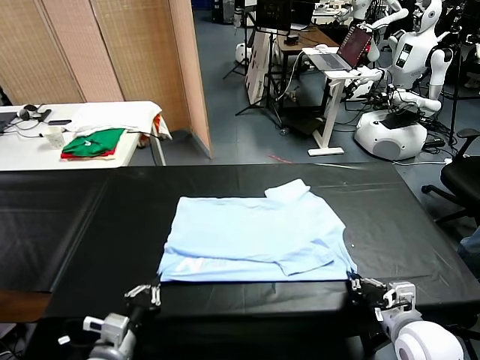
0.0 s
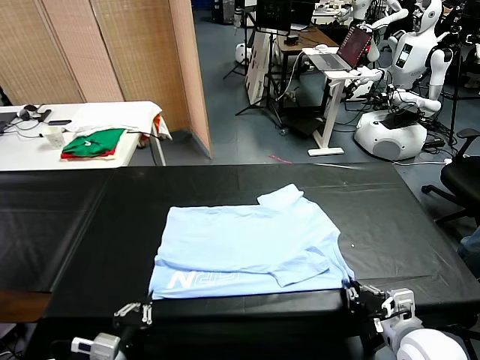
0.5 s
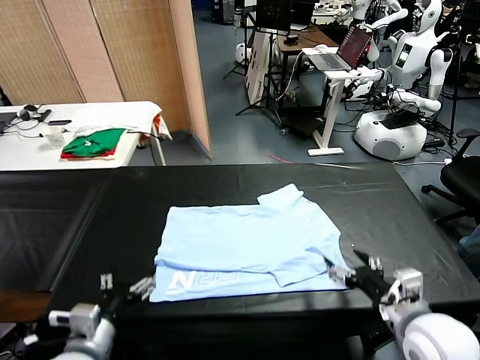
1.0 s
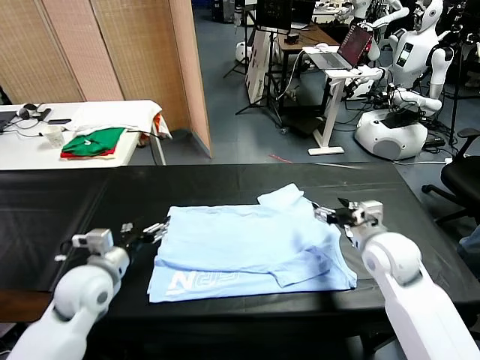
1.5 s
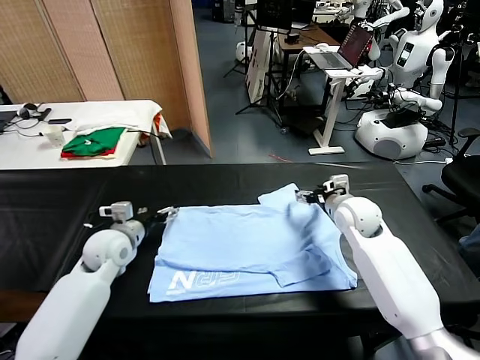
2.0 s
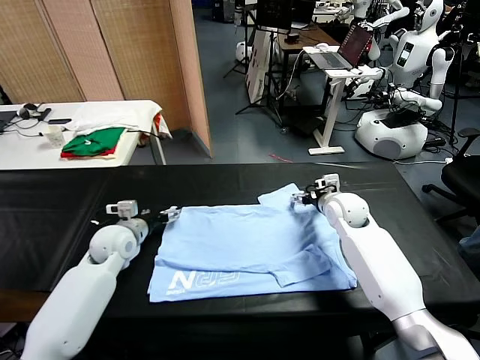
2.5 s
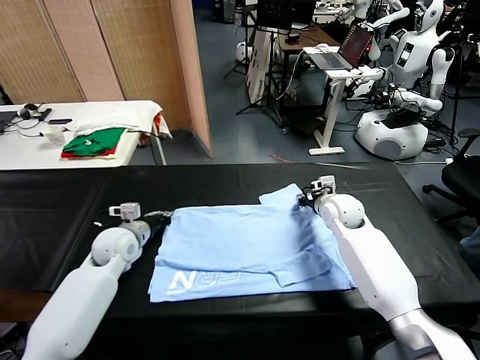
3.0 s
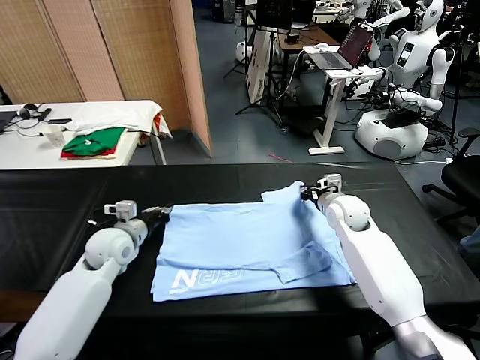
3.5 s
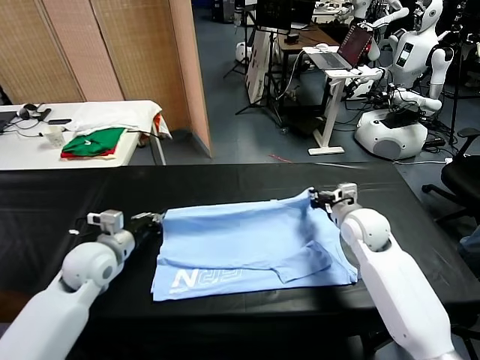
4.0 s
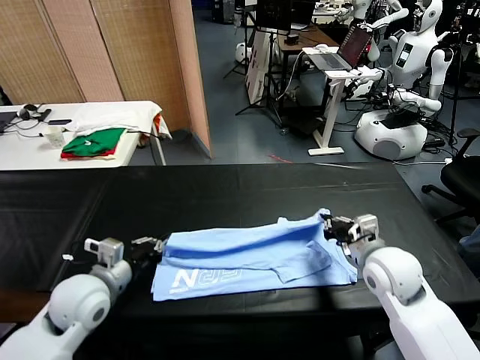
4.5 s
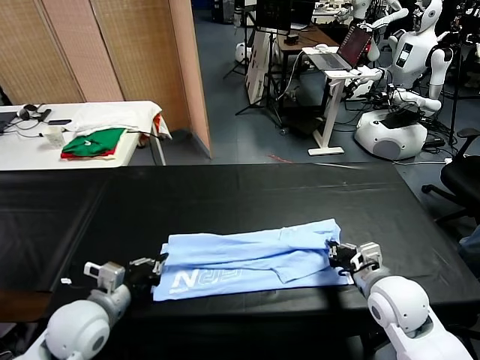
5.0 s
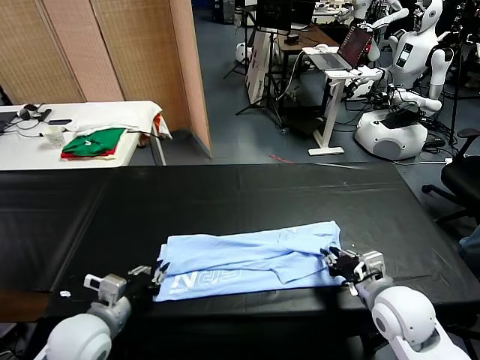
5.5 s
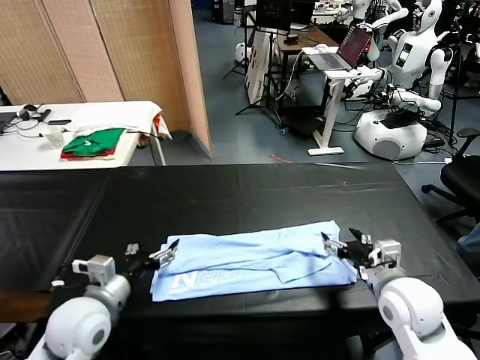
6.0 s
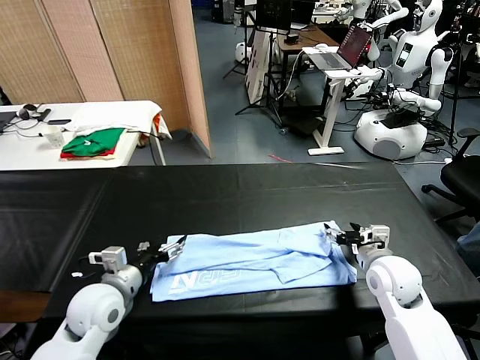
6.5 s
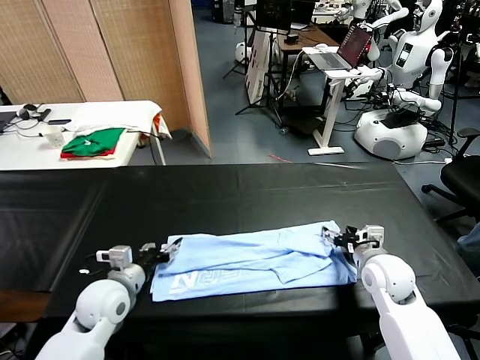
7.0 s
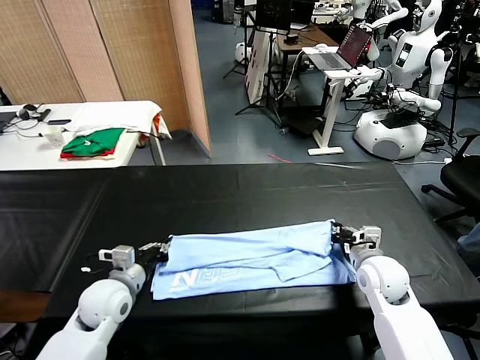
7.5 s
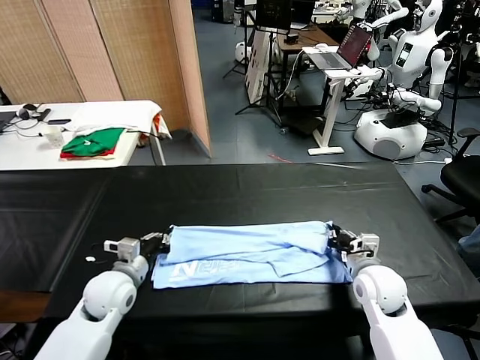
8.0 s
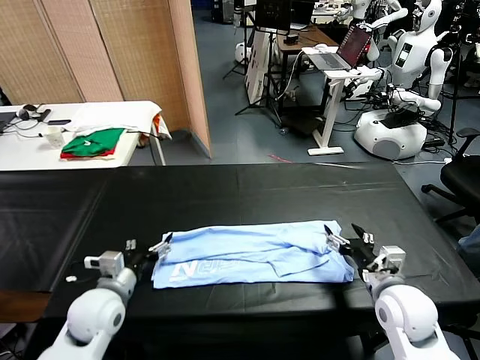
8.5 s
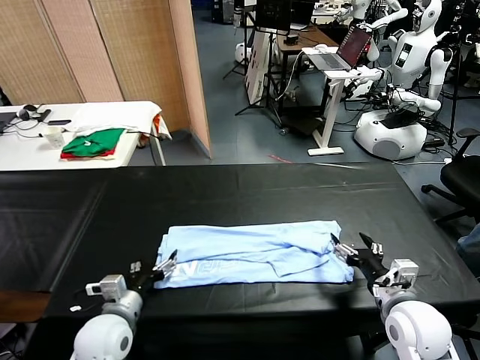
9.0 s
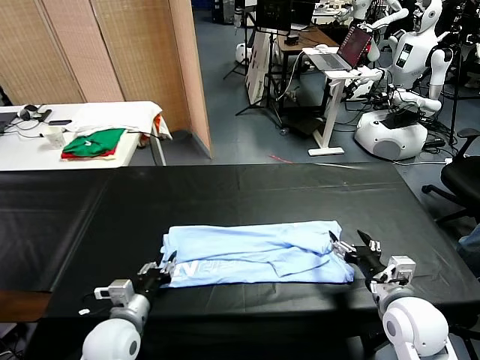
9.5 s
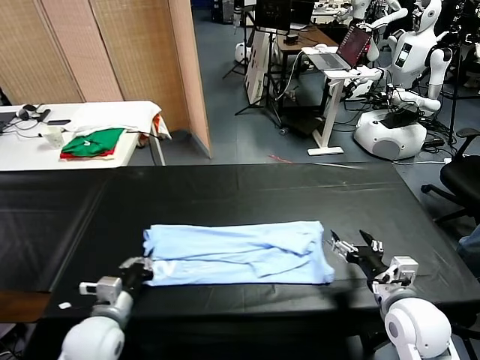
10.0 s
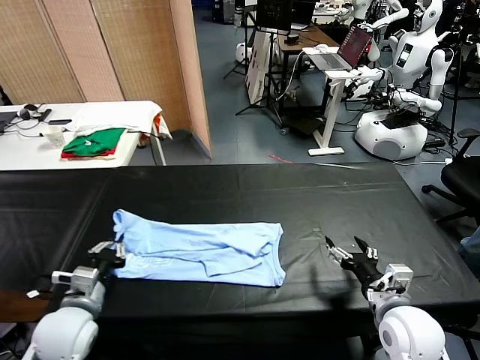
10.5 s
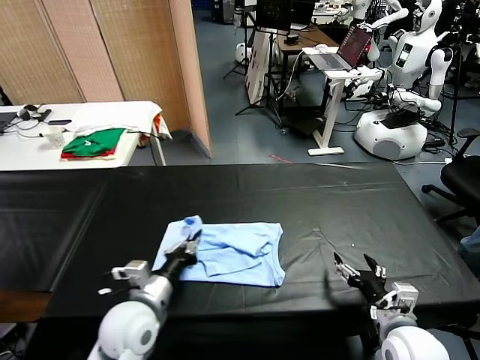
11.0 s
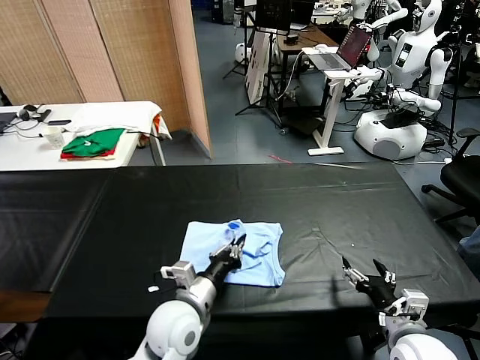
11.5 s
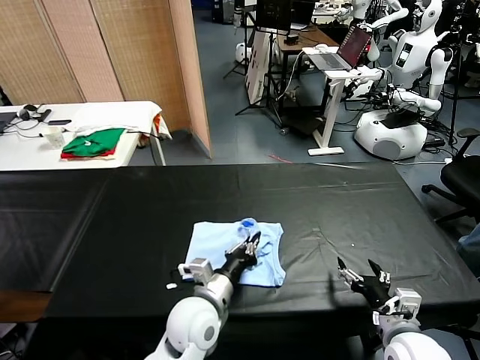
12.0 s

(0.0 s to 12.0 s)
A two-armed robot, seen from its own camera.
Task of the whole recording: fold and organize the clothes.
Step, 1.0 s - 3.0 s: use both grippers simultaneously to clamp the upper edge of the clothing fabric.
Step, 3.5 s - 5.5 s: use both grippers to drag the upper edge of the fabric backward and fold it over the lower edge.
Step, 6.0 s - 9.5 s: use the left gripper to clamp the left edge of the fabric.
0.0 s - 2.0 s: Both grippers move forward, roughly 30 cm. The right gripper opens. Meanwhile the left gripper opens up.
2.0 s - 4.0 s: Both grippers move backward, approximately 10 cm. The left gripper closes up. The right gripper closes its fingers.
4.0 s - 6.0 s: Both grippers travel together backward, approximately 10 cm. The right gripper opens, while the left gripper opens its fingers.
6.0 s - 8.0 s: The right gripper shifts about 5 cm downward, and closes its fingers. The left gripper is displaced forward and downward by approximately 10 cm, and closes its fingers.
8.0 s - 10.0 s: The two grippers go roughly 10 cm backward. The right gripper opens, while the left gripper opens, then closes once more.
10.0 s - 12.0 s: The left gripper heads to the right, covering some 20 cm. The right gripper changes place by about 5 cm.

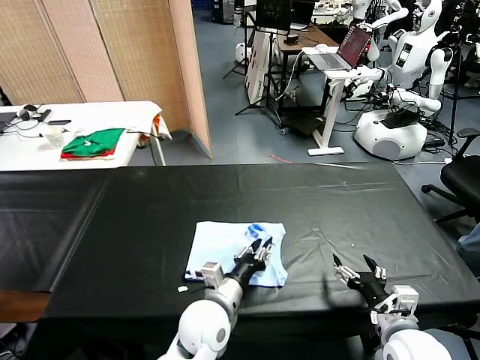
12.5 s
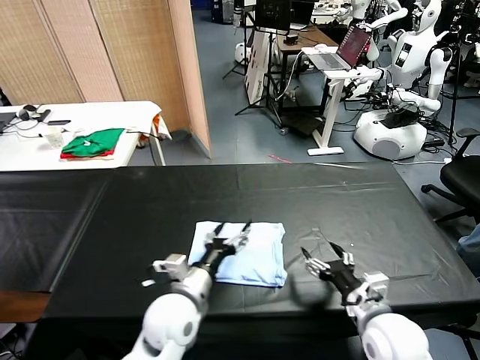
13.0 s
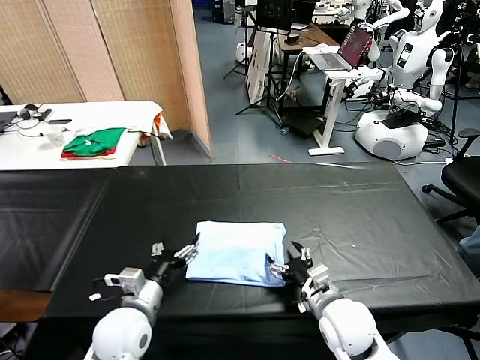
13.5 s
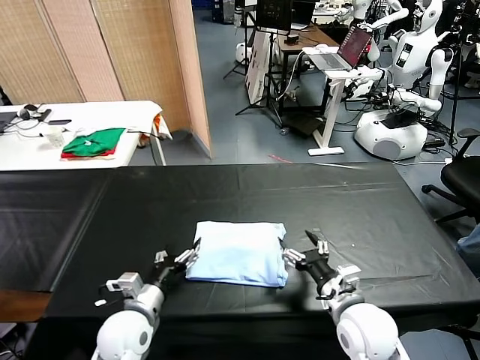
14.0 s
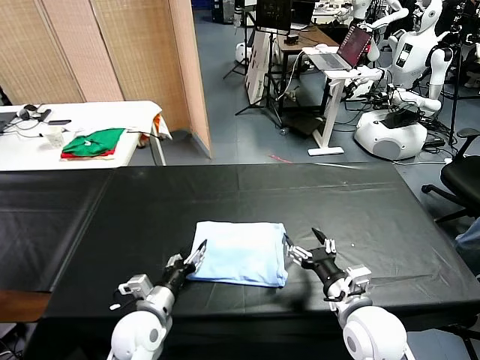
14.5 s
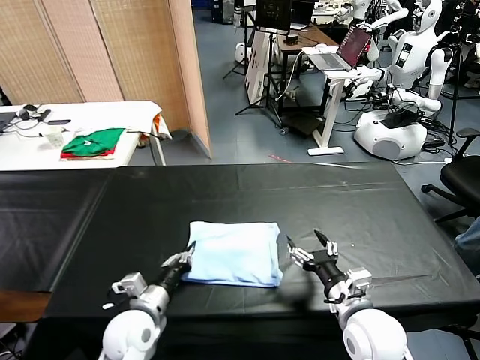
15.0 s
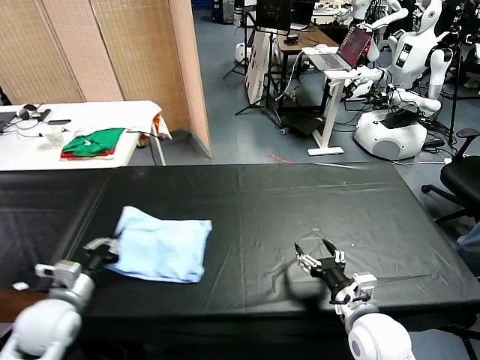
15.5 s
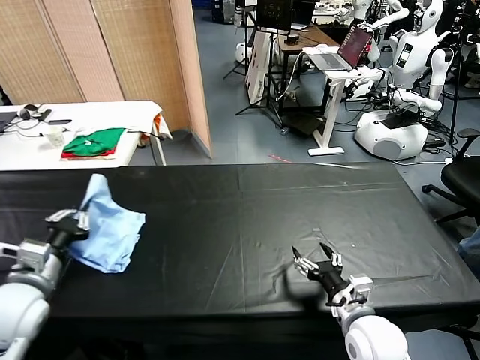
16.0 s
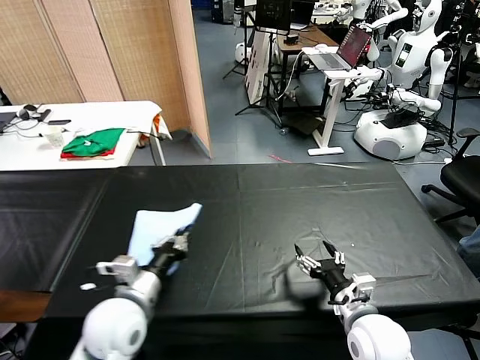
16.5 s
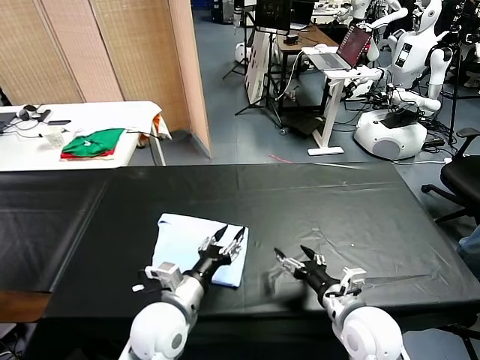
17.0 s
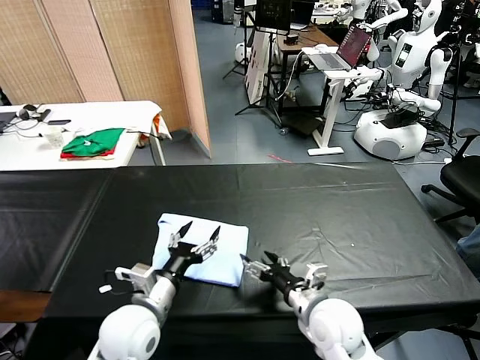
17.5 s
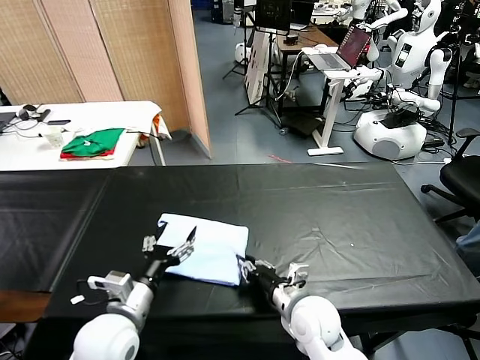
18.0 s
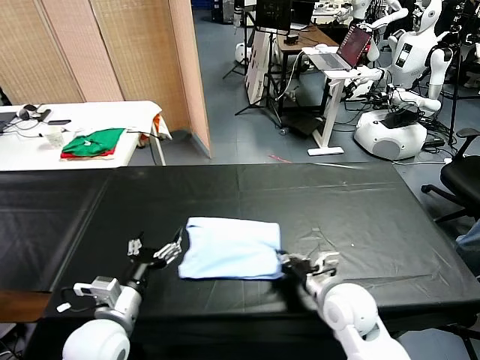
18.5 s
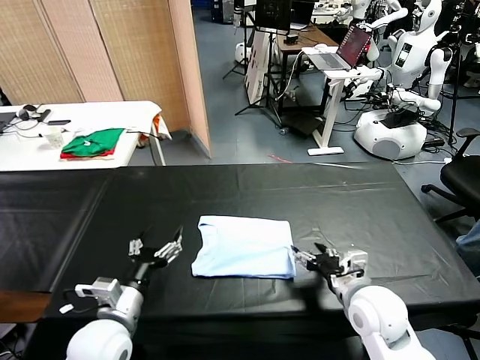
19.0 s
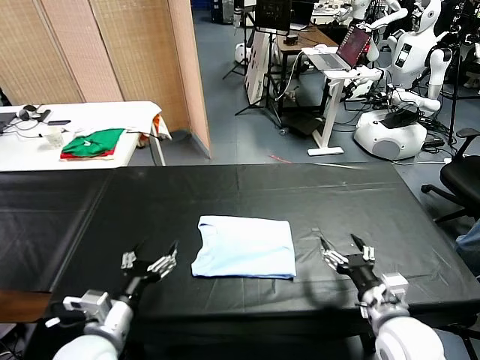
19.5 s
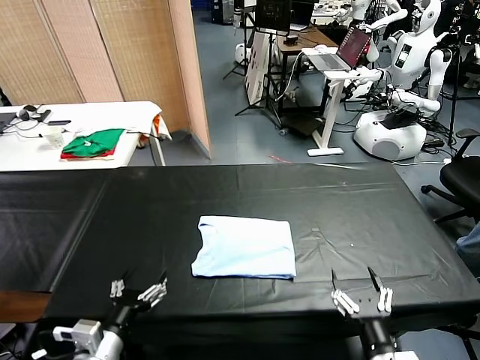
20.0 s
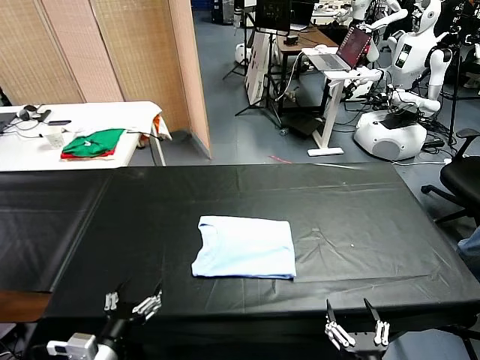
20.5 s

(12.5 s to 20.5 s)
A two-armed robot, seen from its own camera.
Task of the whole recording: fold and organize the clothes.
Step, 13.0 s - 16.5 s: Flip the folded clothes over with left gripper.
Step, 17.0 s - 18.5 s: Drag the clothes to the center of the table.
12.5 s - 14.5 s: The right gripper heads to the left, covering about 5 cm. The left gripper heads to the left, covering some 15 cm, and opens its fingers.
14.5 s - 16.5 s: The left gripper travels upward by about 10 cm, and closes up.
16.5 s - 18.5 s: The right gripper shifts about 5 cm forward, goes to the left and returns, approximately 10 cm each way, and closes up. The left gripper goes to the right and returns, about 5 cm each way, and opens.
18.5 s - 20.5 s: The right gripper goes about 25 cm backward, and opens up; the left gripper heads backward, covering about 10 cm.

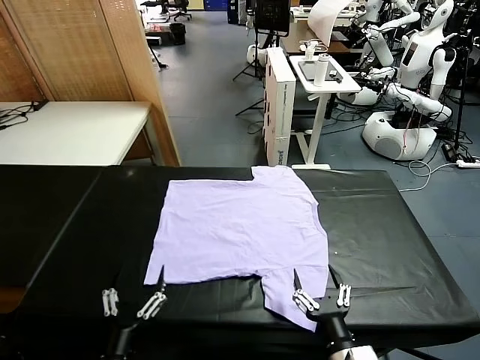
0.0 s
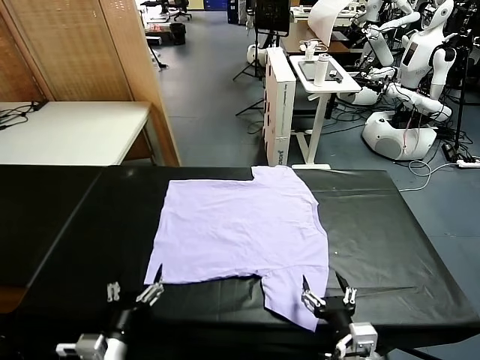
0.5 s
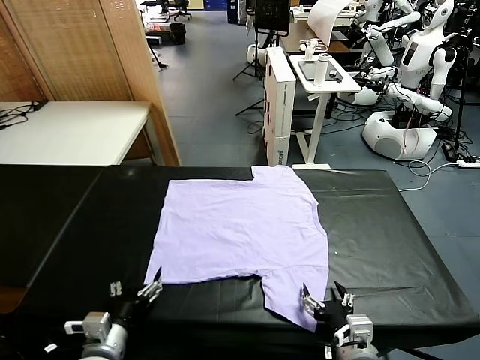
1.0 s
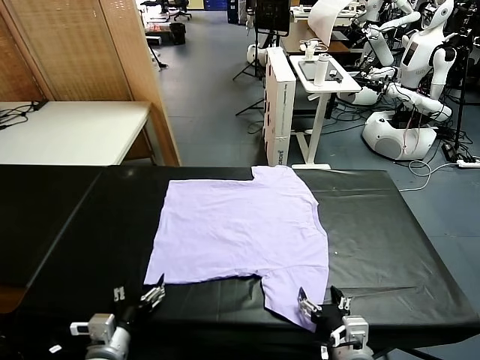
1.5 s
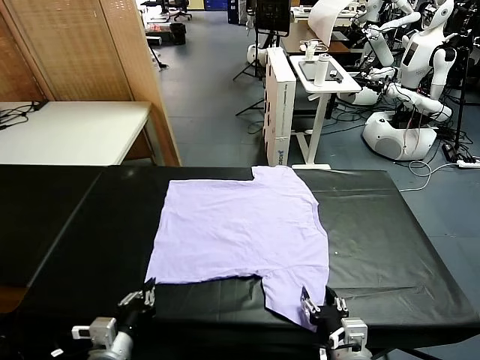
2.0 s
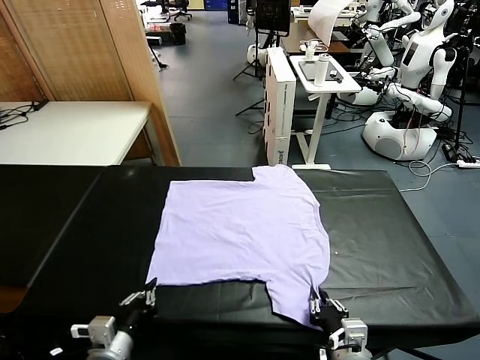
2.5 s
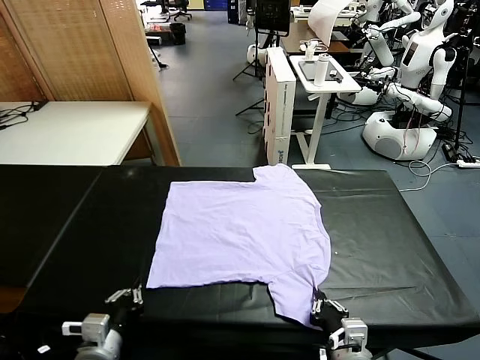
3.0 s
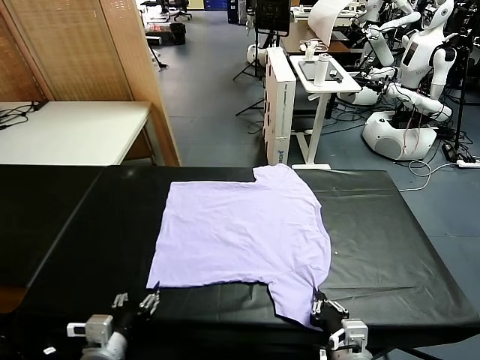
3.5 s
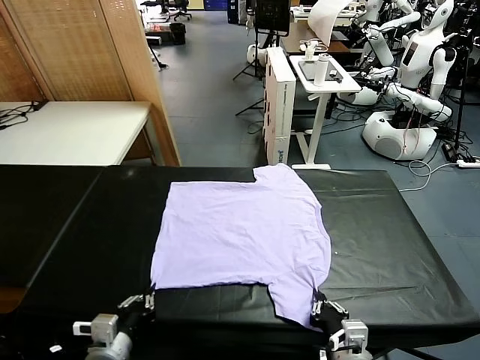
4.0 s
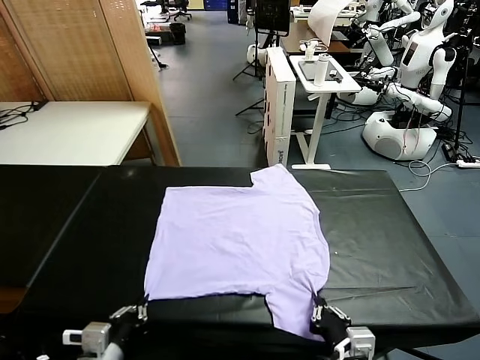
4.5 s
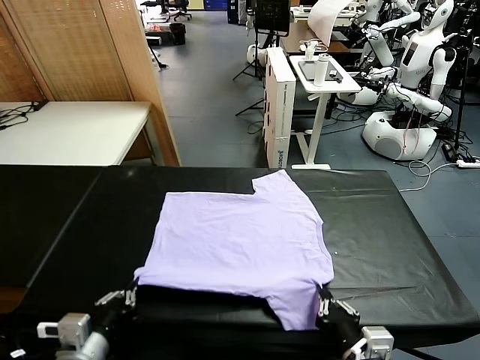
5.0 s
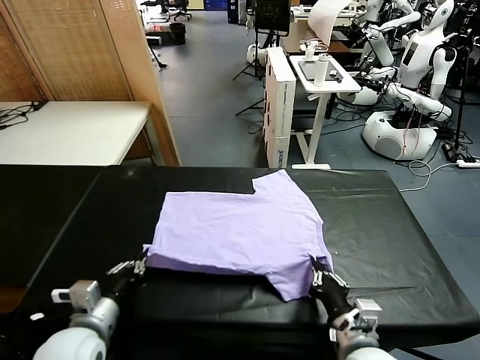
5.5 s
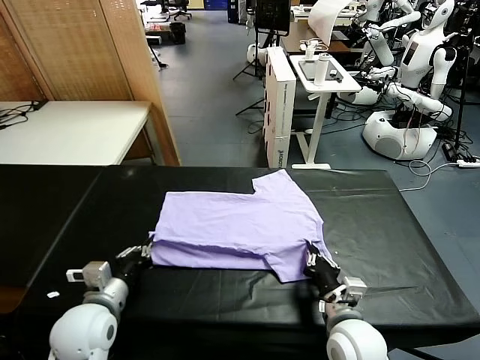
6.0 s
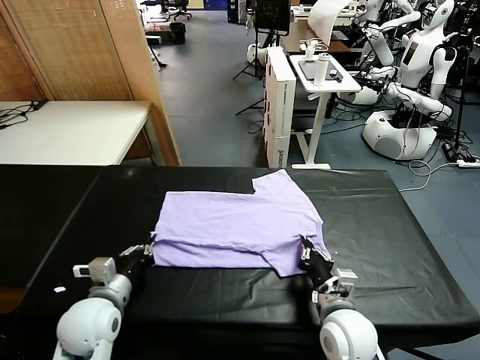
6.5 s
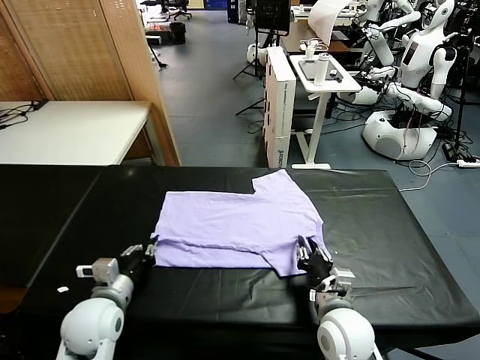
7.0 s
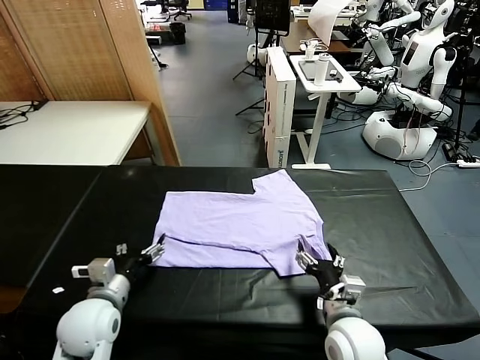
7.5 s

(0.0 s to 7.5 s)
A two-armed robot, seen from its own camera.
Task of the whole recording: fold and organize the clothes.
Step, 0.0 s - 4.5 s: use both grippers simultaneously to clamp the lower edge of the clothing fabric.
2.0 s - 4.0 s: The left gripper opens, then closes again.
4.0 s - 5.5 s: Both grippers travel together forward, roughly 5 cm.
5.5 s - 7.5 s: The right gripper opens its fingers; the left gripper opens its fingers.
